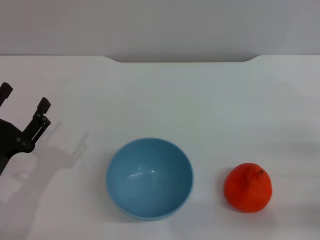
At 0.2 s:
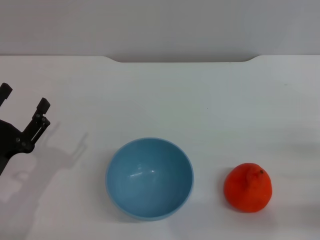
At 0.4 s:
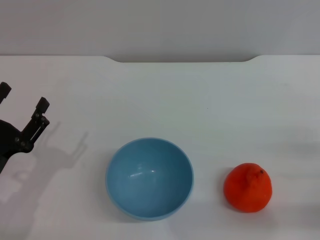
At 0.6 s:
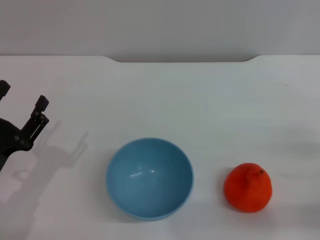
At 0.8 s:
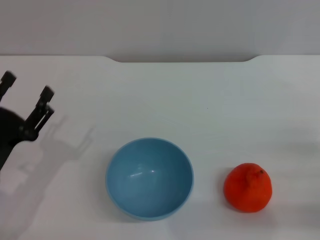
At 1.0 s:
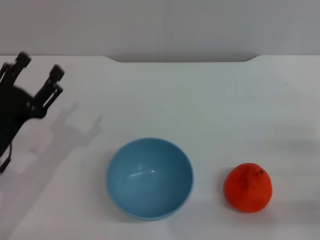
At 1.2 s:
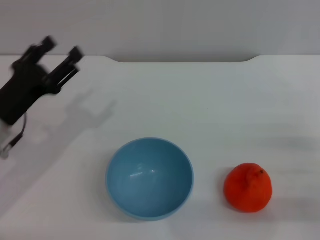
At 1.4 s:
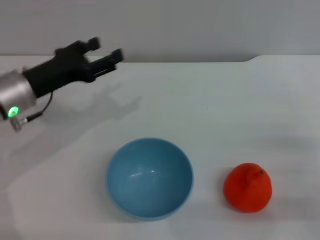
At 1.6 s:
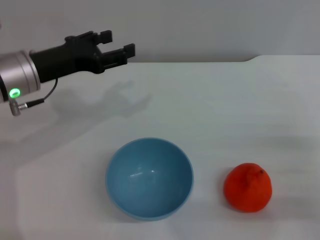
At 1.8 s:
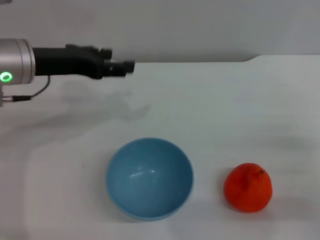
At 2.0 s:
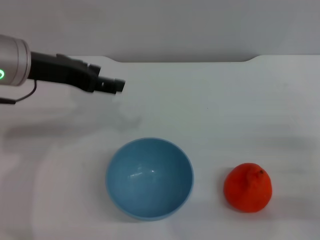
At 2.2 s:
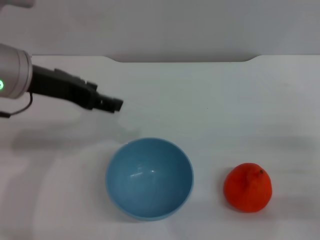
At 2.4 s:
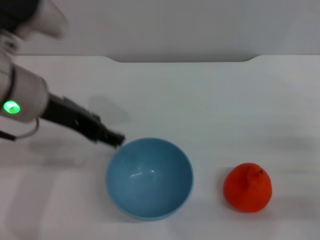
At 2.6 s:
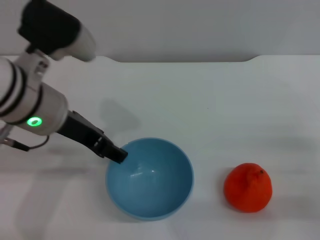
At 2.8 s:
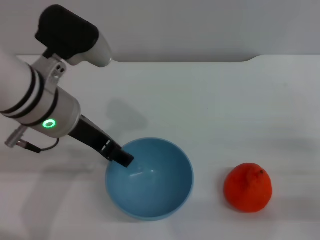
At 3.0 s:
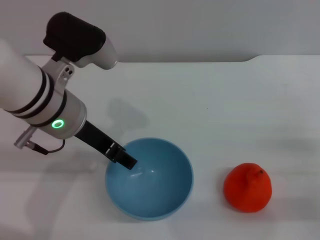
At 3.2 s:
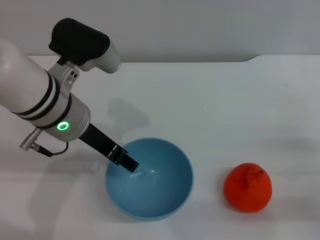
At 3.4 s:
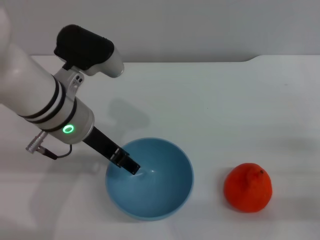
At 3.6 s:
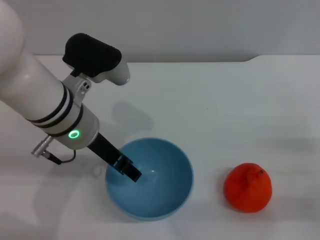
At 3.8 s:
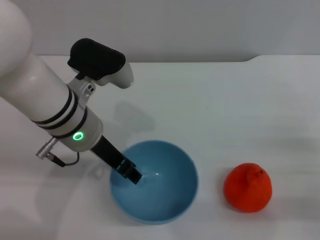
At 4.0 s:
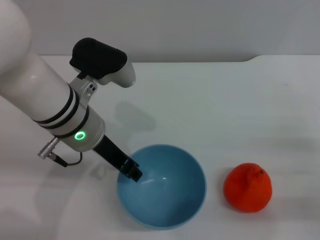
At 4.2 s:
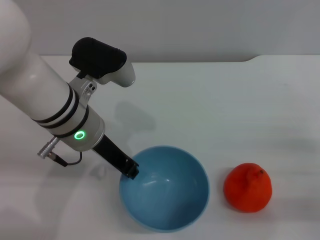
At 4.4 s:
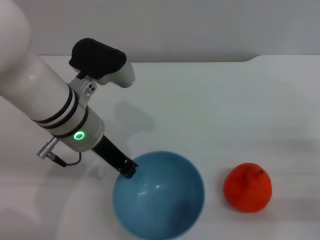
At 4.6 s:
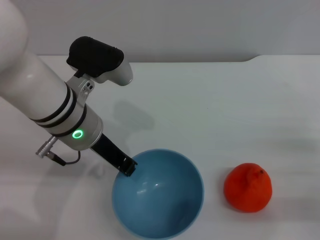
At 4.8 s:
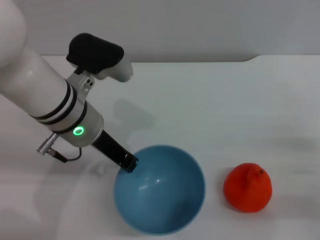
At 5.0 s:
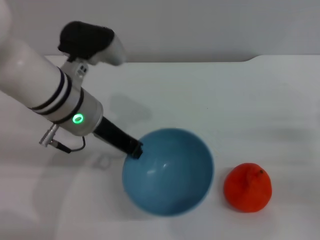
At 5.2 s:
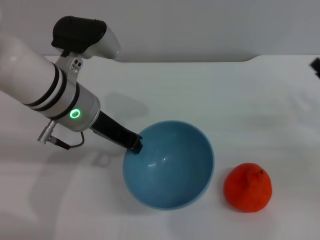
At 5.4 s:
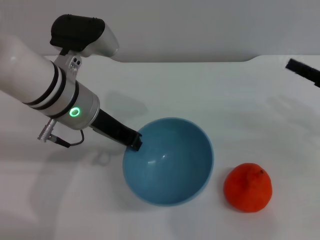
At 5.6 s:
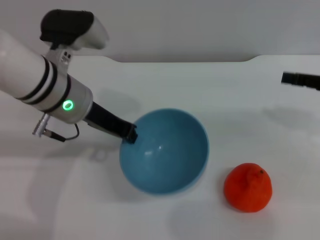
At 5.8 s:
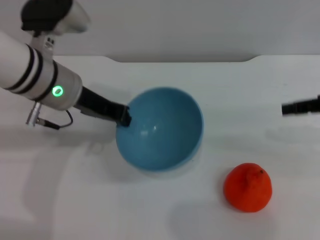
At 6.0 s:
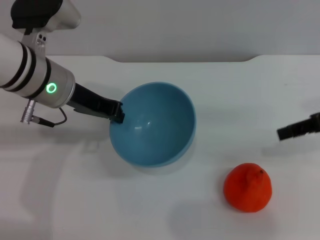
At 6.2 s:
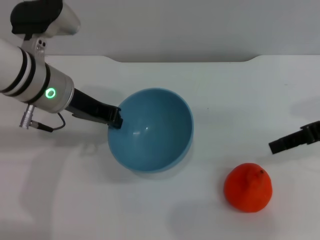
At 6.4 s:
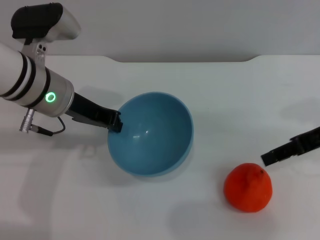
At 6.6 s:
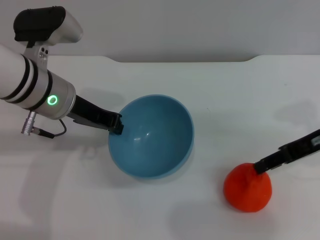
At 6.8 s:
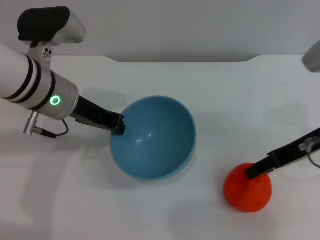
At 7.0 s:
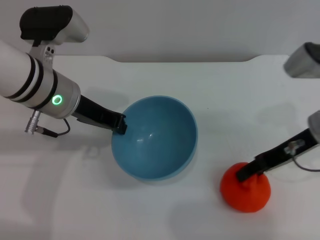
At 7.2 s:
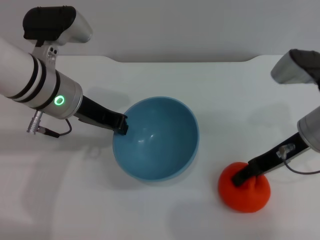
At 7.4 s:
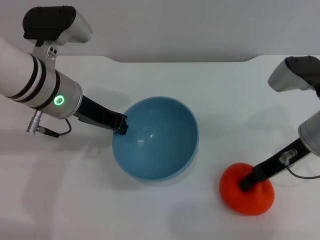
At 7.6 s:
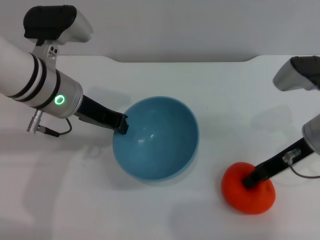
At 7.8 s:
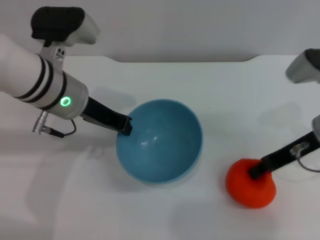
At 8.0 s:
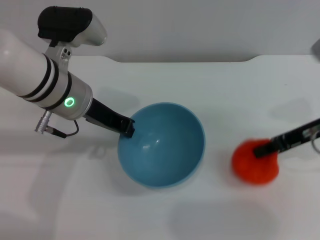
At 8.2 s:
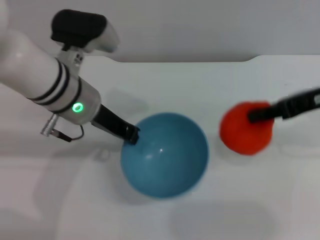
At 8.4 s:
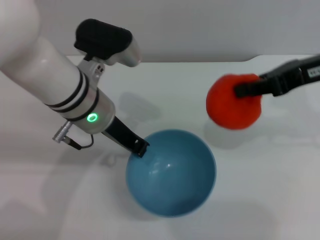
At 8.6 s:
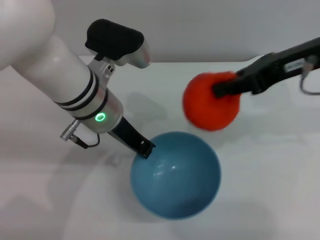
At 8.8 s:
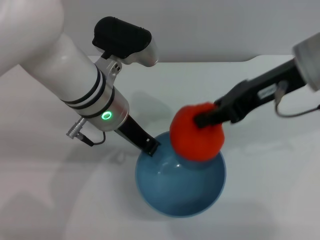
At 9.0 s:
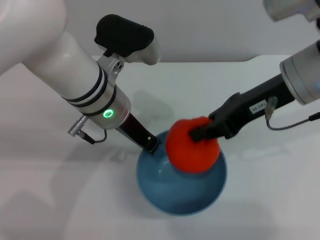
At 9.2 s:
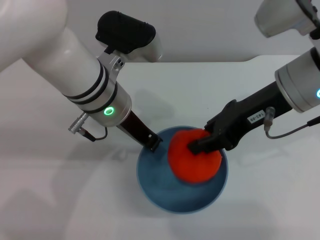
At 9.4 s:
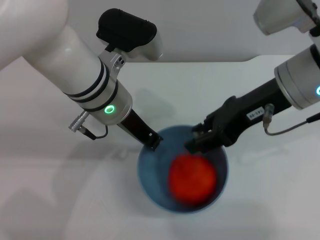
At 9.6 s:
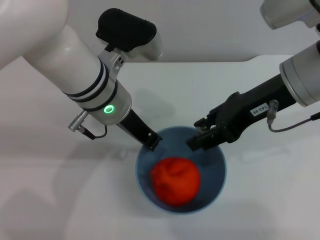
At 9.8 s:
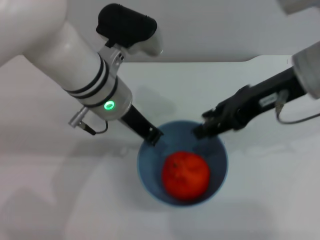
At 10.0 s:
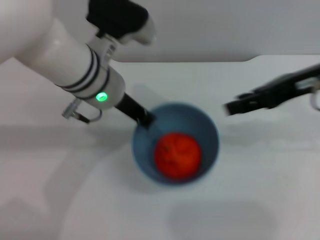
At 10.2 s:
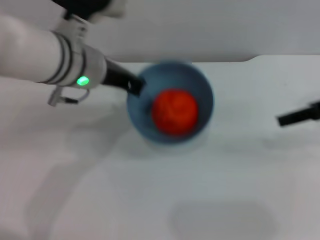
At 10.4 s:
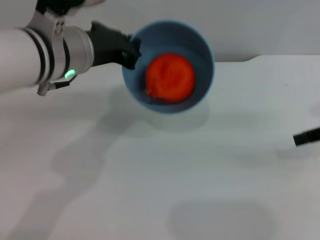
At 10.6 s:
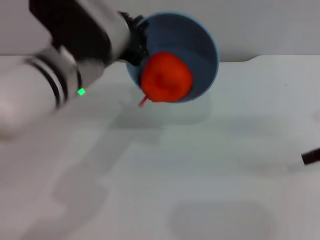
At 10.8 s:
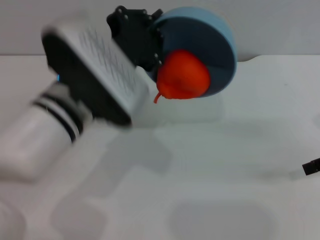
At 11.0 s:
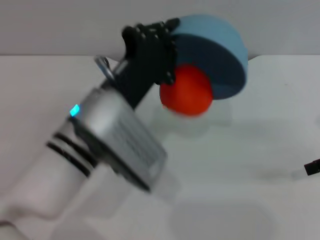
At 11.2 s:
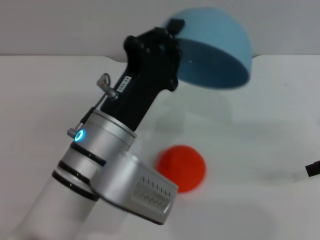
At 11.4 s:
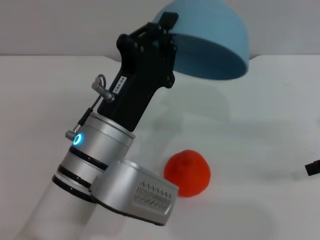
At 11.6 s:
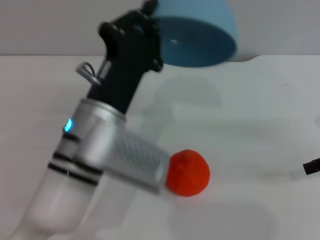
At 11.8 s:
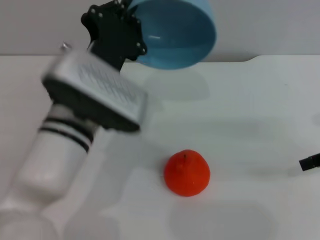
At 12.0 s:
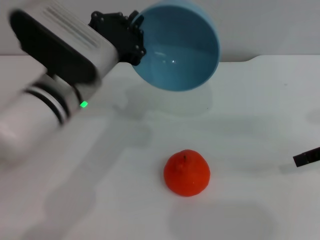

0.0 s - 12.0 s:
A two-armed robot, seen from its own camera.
Task of the whole recording: put the orange into the blue bowl and pour it out repeatedly.
Step, 0.0 s - 5.8 s: Pick up the bowl with the left gripper.
Step, 6.0 s - 8.2 s: Pick up the orange with the right gripper.
Step, 8.4 s - 10.2 s: Place the orange into the bowl.
0.0 s - 1.6 s: The left gripper moves forward and upward, about 20 cm.
1.6 s - 3.0 s: The left gripper moves to the right, roughly 10 cm.
3.0 s - 4.4 s: The left gripper closes up.
4.4 s - 6.0 s: The right gripper is displaced upward and forward by approximately 20 cm. The left gripper changes place by about 5 cm.
6.0 s - 7.6 s: The right gripper heads downward and to the left, covering about 10 cm, and closes.
7.6 s - 9.0 s: The left gripper travels to the right by some 5 cm. The right gripper moves upward and to the left, some 10 cm.
9.0 s - 10.4 s: The left gripper moves roughly 5 cm. Meanwhile the right gripper is displaced to the right by approximately 15 cm, and opens up.
10.4 s - 12.0 s: The left gripper goes backward and returns, about 10 cm each way.

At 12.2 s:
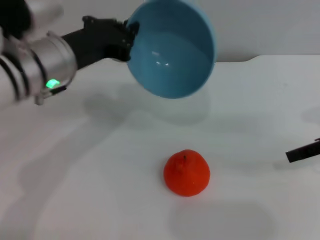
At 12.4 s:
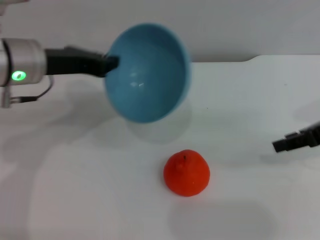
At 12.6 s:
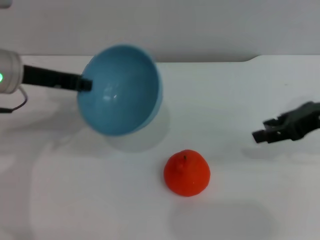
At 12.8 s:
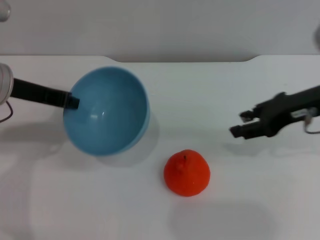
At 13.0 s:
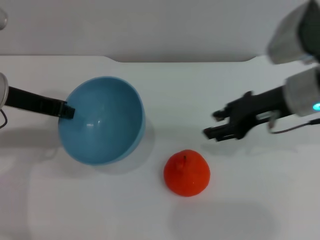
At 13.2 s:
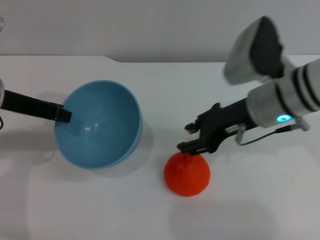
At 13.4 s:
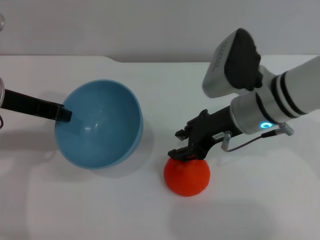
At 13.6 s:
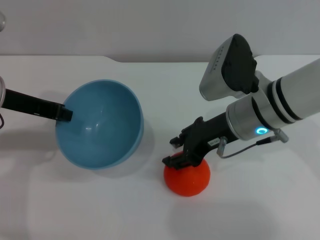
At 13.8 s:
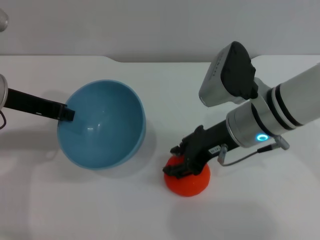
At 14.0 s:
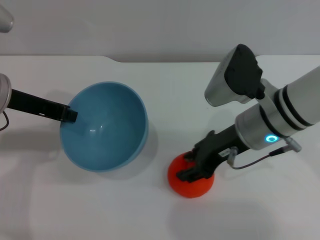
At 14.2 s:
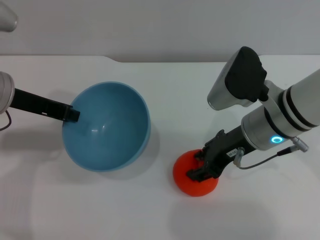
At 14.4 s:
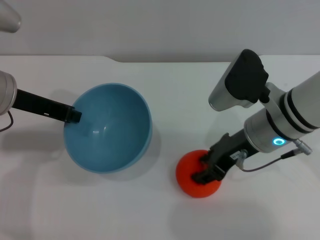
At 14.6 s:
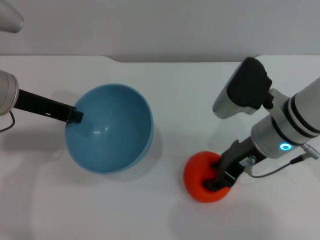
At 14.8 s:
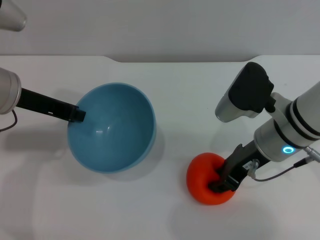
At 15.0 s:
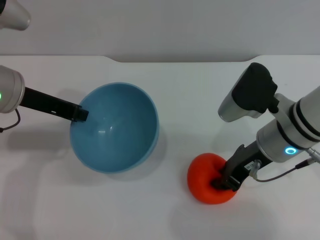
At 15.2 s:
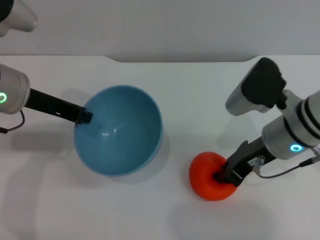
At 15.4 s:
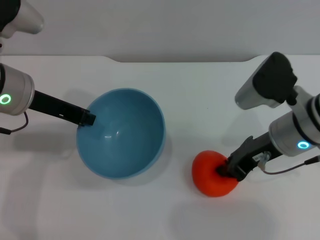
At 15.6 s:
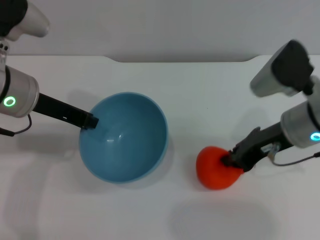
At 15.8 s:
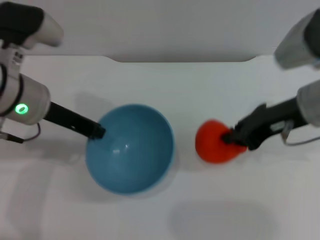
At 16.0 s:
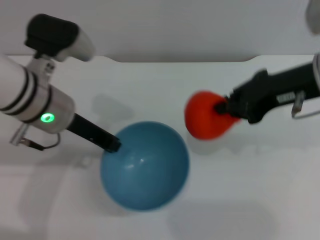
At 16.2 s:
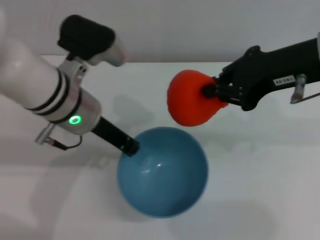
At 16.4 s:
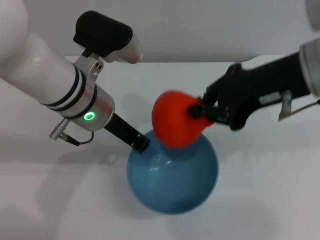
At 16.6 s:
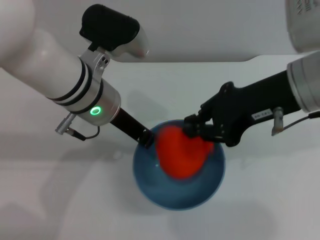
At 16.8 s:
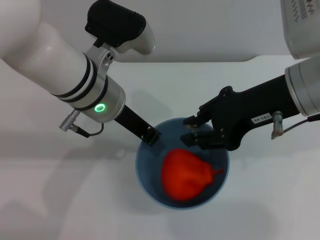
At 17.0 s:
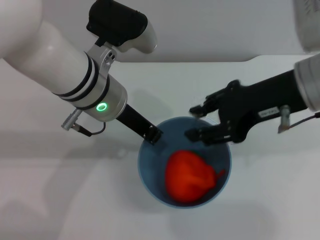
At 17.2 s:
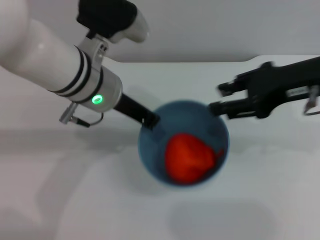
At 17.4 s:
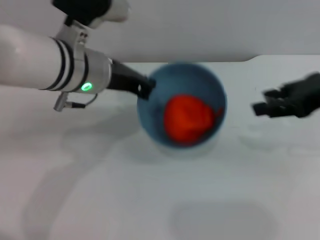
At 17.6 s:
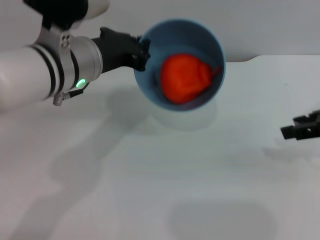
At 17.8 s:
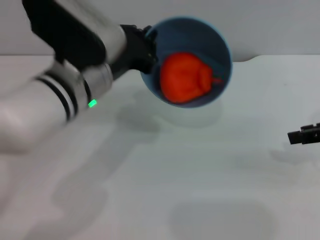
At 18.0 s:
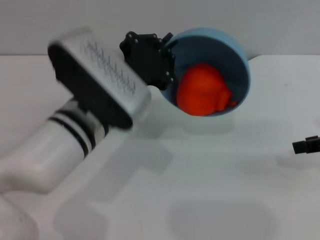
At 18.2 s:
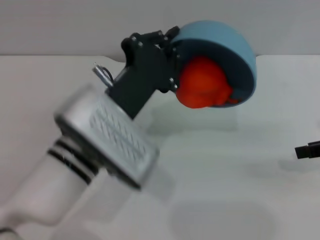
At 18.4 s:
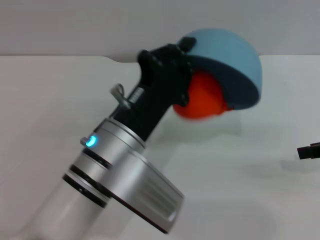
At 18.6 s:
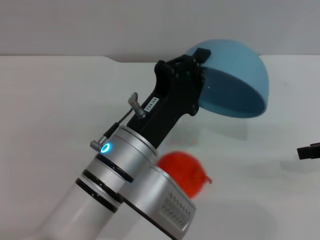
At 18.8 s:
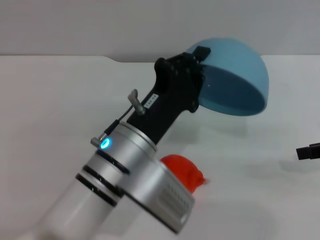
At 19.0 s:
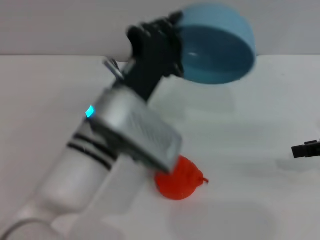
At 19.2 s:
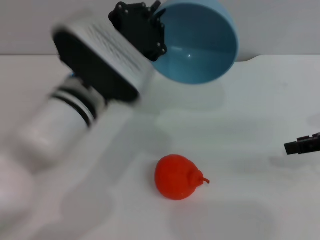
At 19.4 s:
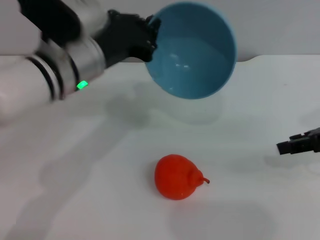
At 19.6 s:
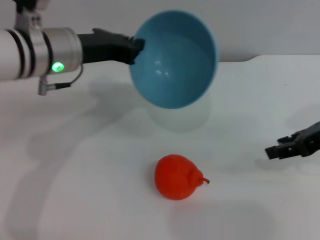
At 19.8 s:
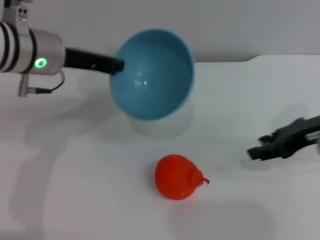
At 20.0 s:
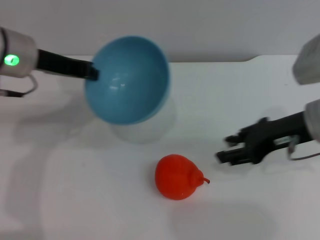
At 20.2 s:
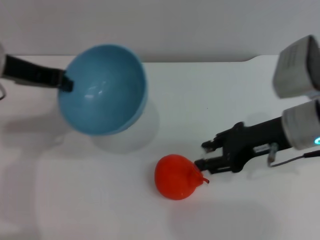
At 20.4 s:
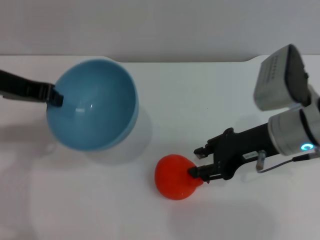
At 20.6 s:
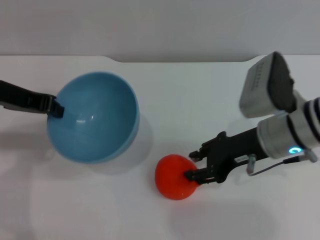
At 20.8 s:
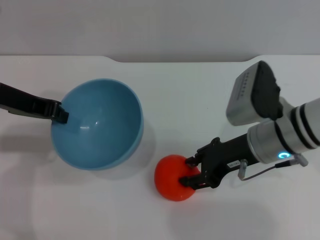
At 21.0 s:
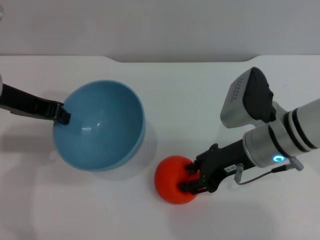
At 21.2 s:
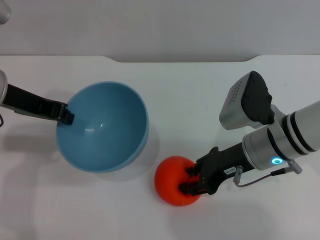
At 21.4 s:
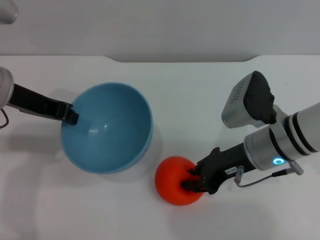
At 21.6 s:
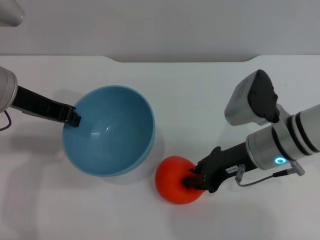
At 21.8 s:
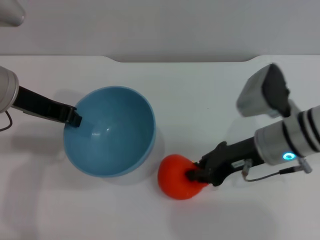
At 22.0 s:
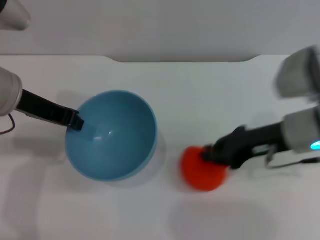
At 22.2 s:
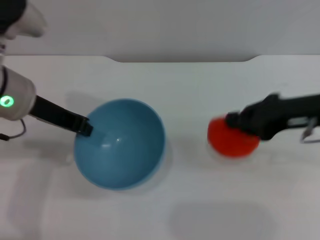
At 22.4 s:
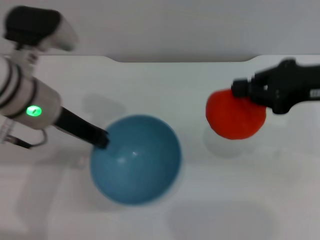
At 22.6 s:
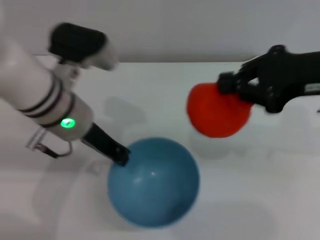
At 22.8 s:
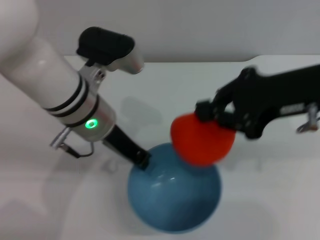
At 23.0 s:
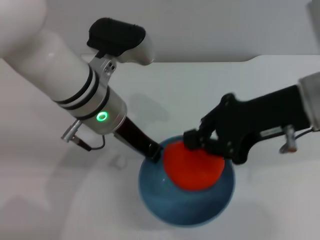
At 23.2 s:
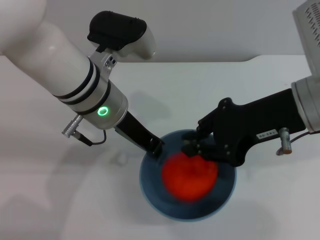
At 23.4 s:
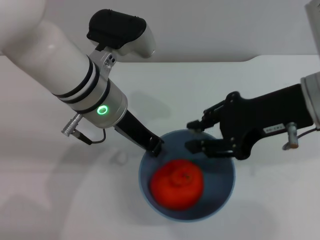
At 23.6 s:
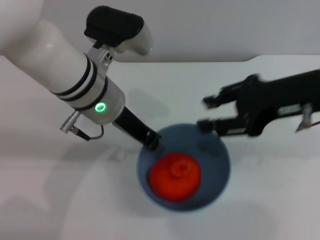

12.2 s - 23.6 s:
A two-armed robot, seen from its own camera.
Task of the whole recording: put the orange into the blue bowl and pour it out repeatedly.
Step, 12.2 s - 16.0 s: Pick up the orange with the right gripper.
Step, 16.2 s - 17.2 s: Place the orange into the bowl.
Step, 17.4 s - 18.6 s: Pour the orange out of the bowl.
Step, 18.8 s - 22.2 s: Pick up the orange with the right gripper.
Step, 22.4 s - 23.2 s: Place the orange into the bowl.
12.2 s - 13.6 s: The left gripper shifts approximately 10 cm to the left. Meanwhile the right gripper heads to the left, covering some 20 cm.
15.0 s - 16.4 s: The left gripper shifts roughly 10 cm to the right; the right gripper is displaced upward by approximately 15 cm, and closes up.
16.4 s - 17.8 s: The right gripper moves to the right and downward, about 15 cm, and opens up.
17.8 s - 19.4 s: The left gripper reaches about 5 cm backward, then returns.
19.4 s - 20.8 s: The right gripper travels to the left and downward by roughly 15 cm, while the left gripper moves to the left, about 10 cm.
20.8 s - 22.2 s: The right gripper travels to the right and upward by some 10 cm, and closes.
22.2 s - 23.6 s: The left gripper heads to the right, covering some 10 cm; the right gripper shifts approximately 5 cm upward, and opens up.
